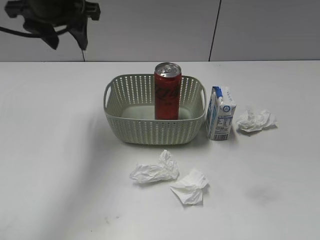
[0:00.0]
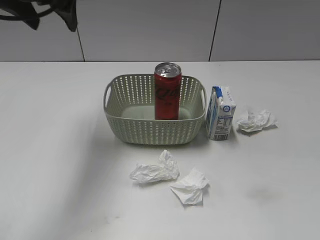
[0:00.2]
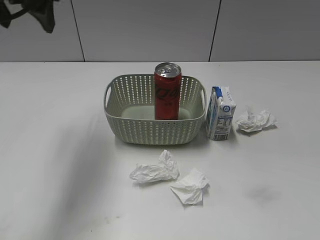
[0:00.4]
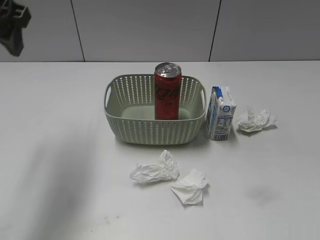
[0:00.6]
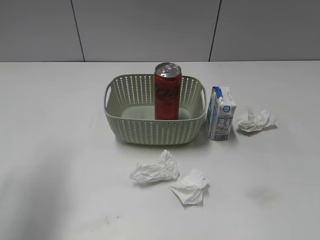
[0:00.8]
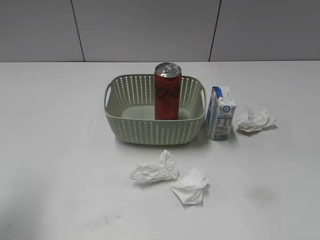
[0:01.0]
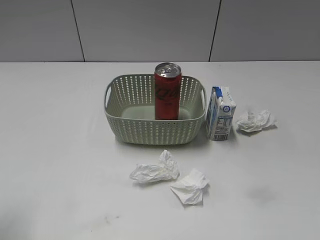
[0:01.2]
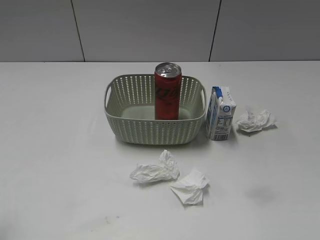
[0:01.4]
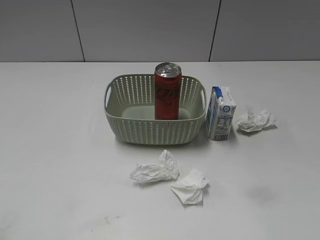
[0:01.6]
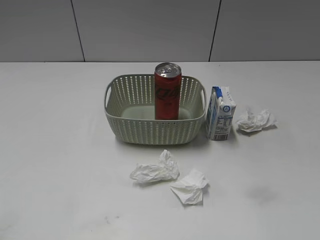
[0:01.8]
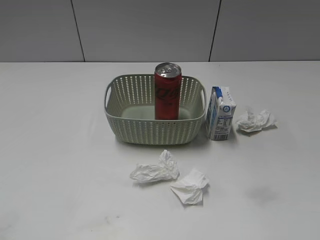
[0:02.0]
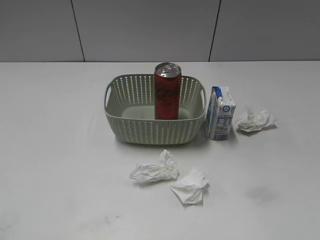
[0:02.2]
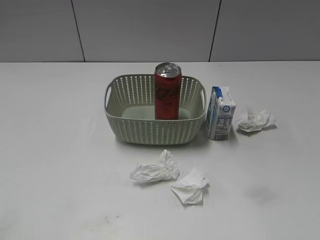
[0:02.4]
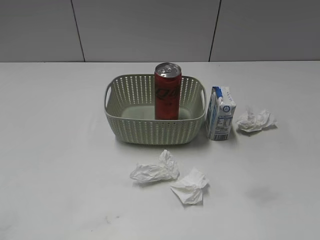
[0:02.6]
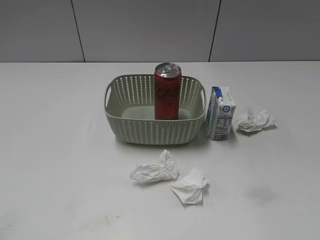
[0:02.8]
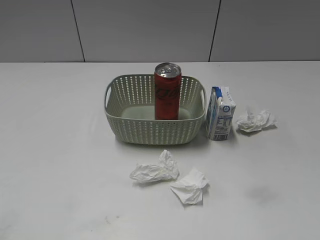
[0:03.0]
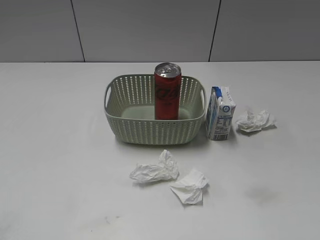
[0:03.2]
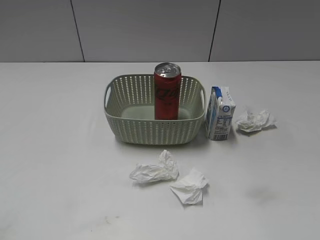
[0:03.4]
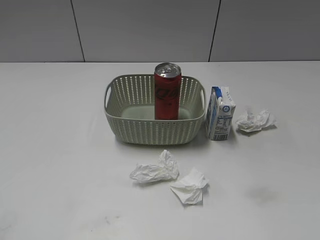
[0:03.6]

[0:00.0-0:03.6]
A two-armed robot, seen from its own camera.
0:00.0 to 0:01.8: The left gripper travels backward and to the left by about 40 cm.

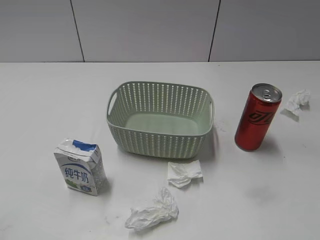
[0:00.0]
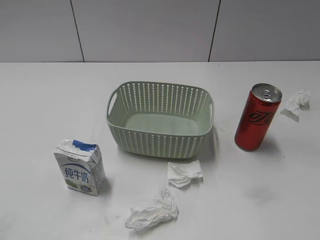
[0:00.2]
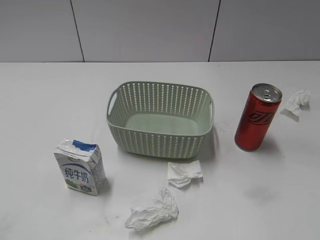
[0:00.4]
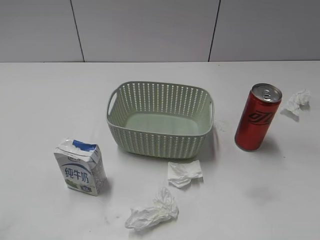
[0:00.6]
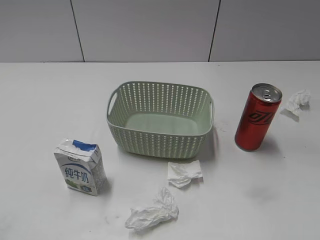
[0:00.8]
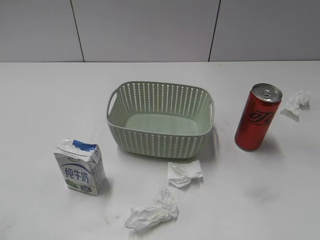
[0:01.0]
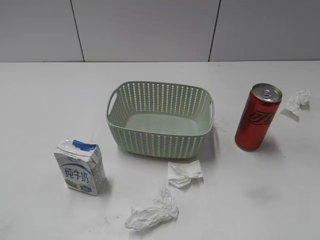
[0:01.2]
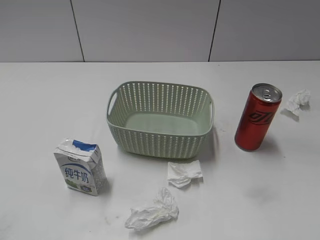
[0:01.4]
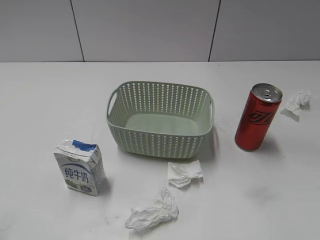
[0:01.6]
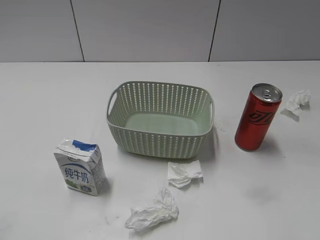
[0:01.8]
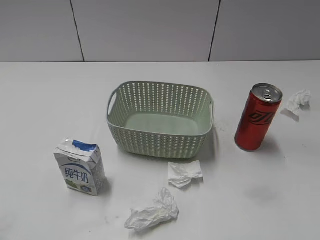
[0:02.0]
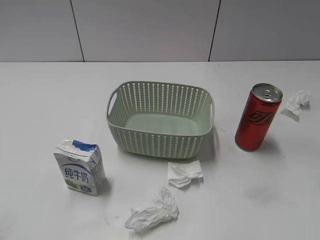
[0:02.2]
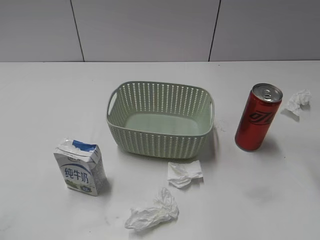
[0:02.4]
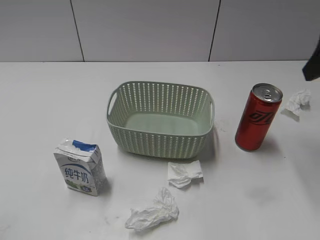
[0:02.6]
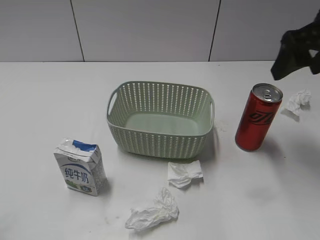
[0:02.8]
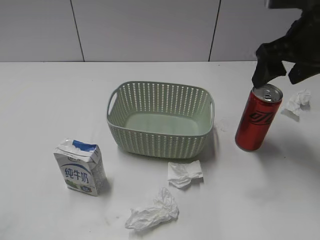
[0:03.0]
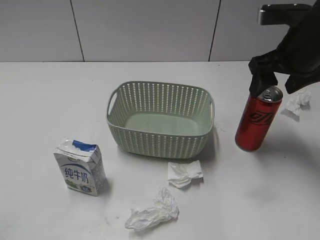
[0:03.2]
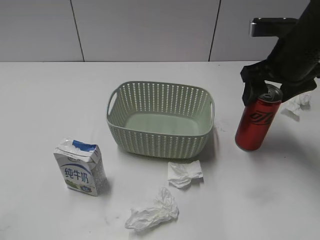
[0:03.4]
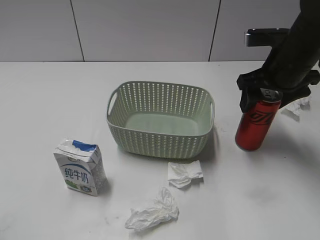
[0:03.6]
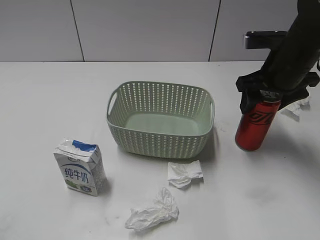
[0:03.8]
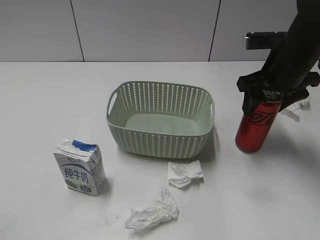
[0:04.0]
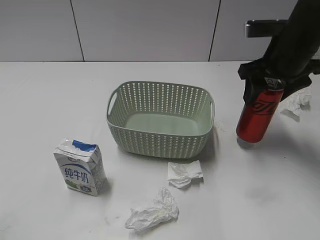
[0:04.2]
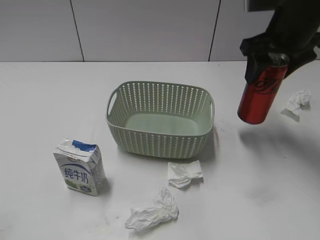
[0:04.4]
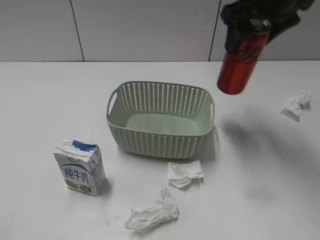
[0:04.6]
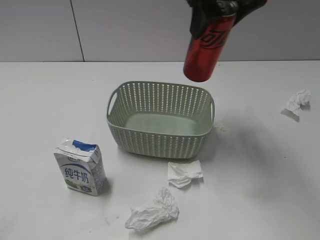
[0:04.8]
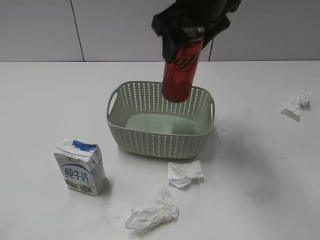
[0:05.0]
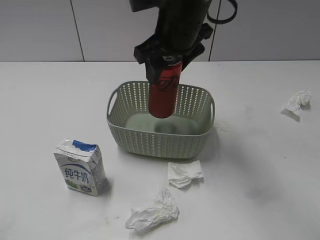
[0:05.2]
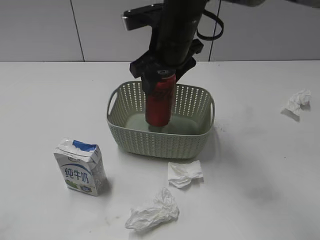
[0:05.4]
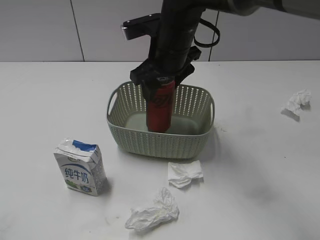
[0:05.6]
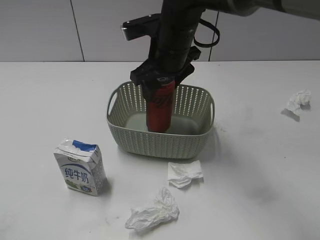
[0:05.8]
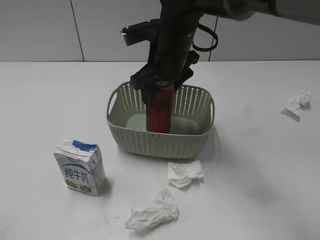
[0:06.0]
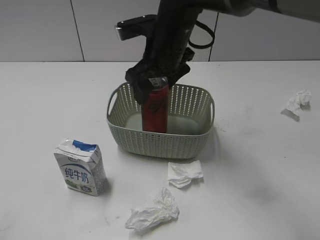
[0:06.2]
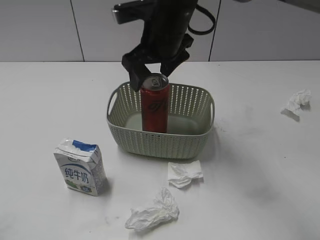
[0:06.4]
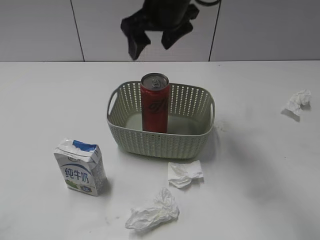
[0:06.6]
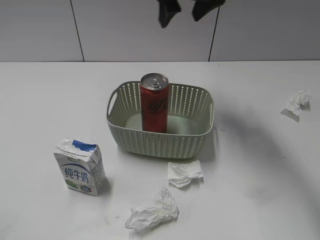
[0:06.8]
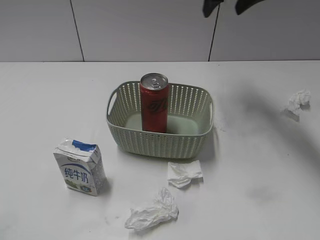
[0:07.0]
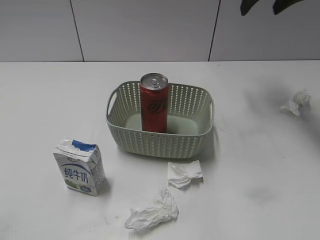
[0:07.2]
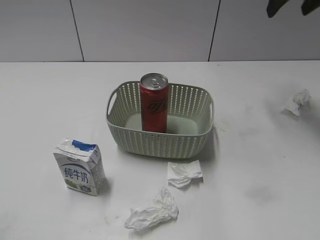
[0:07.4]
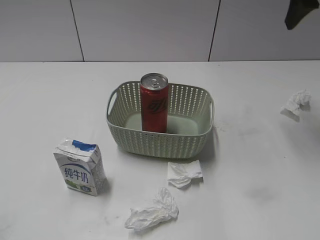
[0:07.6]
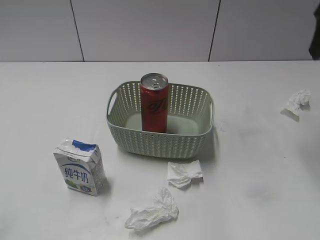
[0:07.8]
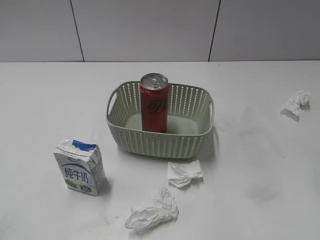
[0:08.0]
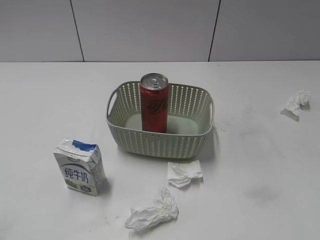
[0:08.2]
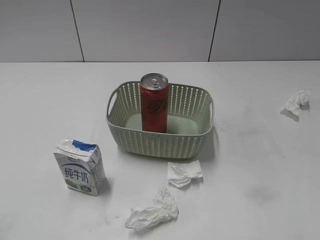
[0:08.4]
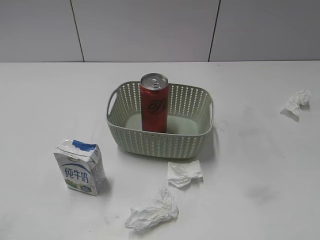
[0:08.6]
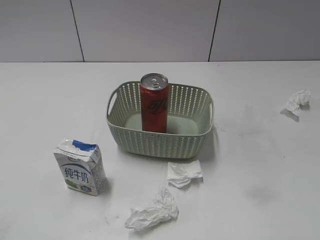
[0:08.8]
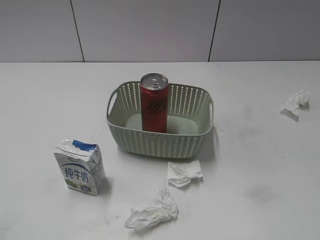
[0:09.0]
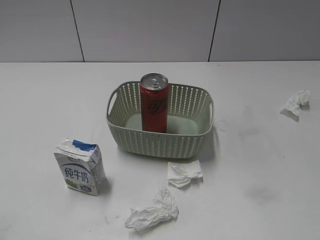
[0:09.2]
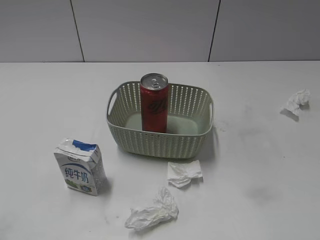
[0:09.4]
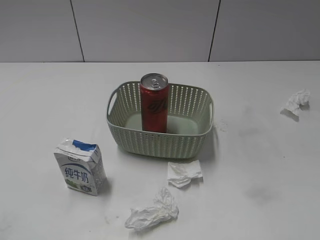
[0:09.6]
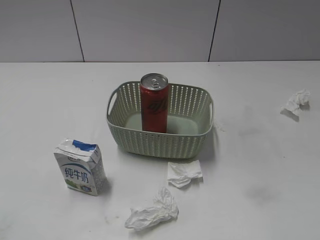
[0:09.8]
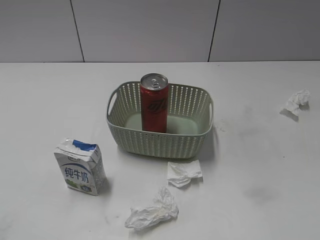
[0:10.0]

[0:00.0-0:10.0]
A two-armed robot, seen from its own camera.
Step, 0:02.6 to 0:04.0: Grasp the cola can with right gripper.
Step, 0:04.2 to 0:06.4: Place the cola can in the basket with right gripper.
0:01.4 to 0:02.8: The right gripper moves forward, approximately 25 cm.
0:02.8 to 0:04.2: The right gripper shifts approximately 10 cm downward and forward, and closes up.
0:04.2 to 0:05.8: The right gripper shifts roughly 20 cm to the left.
0:05.8 to 0:07.2: The right gripper heads to the right, upward and forward, covering approximately 25 cm, and opens its fingers.
0:07.2 to 0:08.6: The right gripper heads backward, covering some 35 cm.

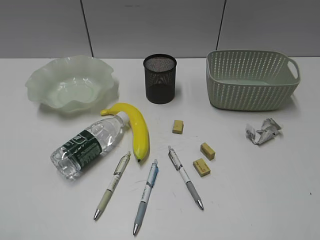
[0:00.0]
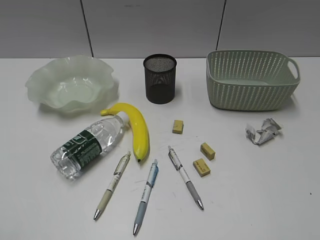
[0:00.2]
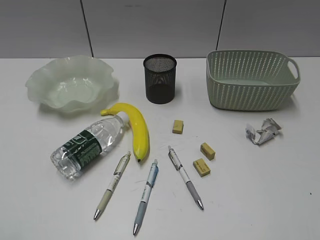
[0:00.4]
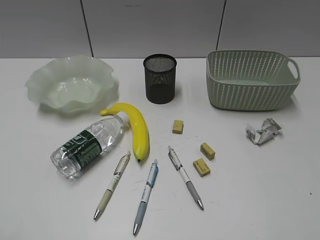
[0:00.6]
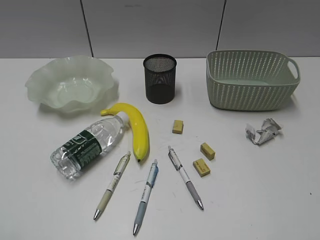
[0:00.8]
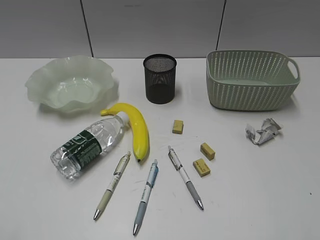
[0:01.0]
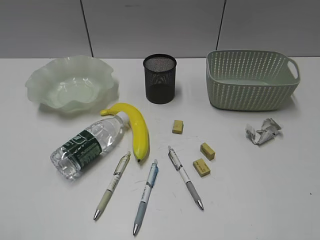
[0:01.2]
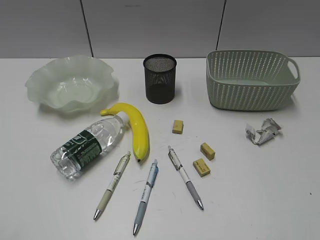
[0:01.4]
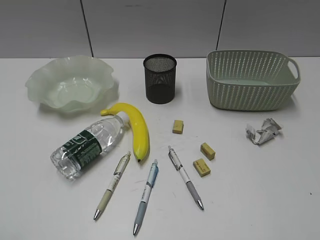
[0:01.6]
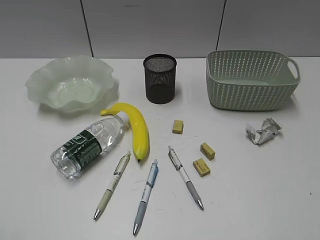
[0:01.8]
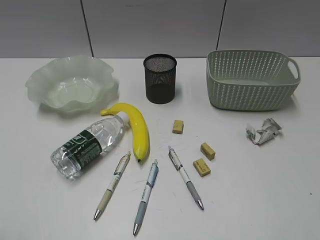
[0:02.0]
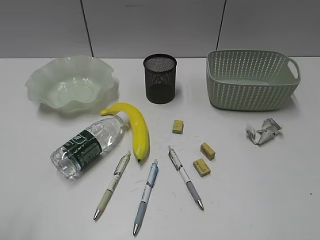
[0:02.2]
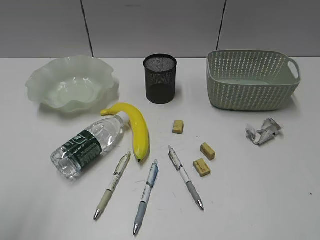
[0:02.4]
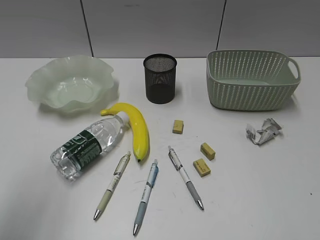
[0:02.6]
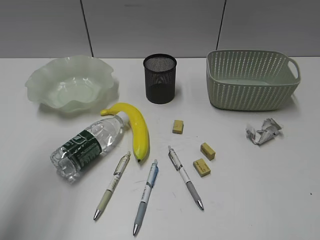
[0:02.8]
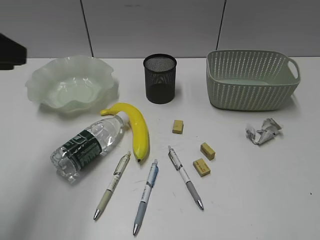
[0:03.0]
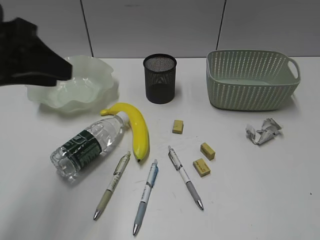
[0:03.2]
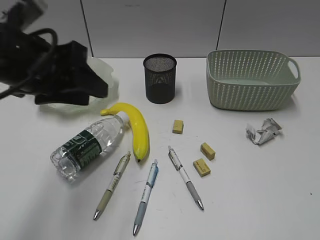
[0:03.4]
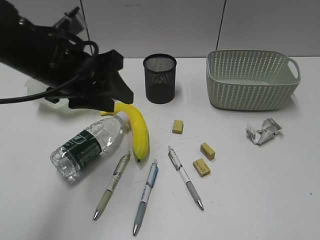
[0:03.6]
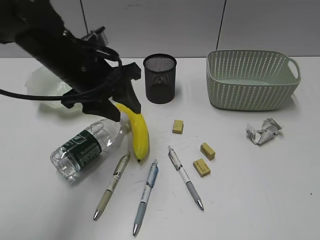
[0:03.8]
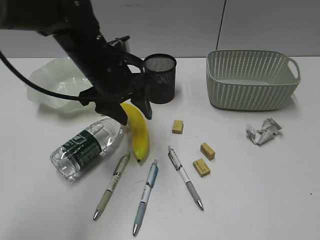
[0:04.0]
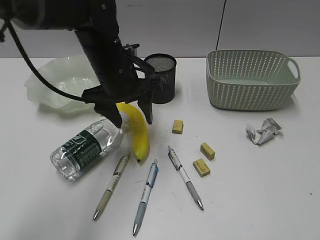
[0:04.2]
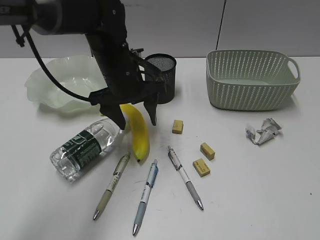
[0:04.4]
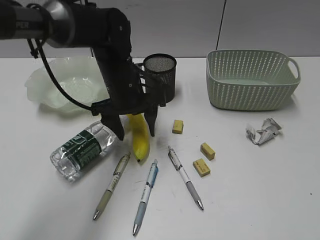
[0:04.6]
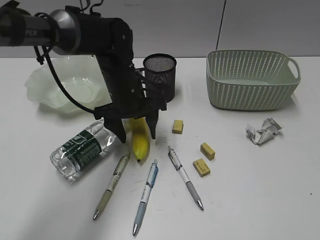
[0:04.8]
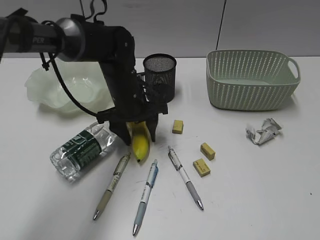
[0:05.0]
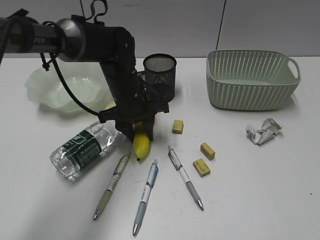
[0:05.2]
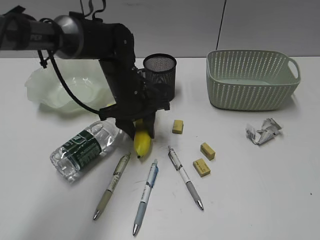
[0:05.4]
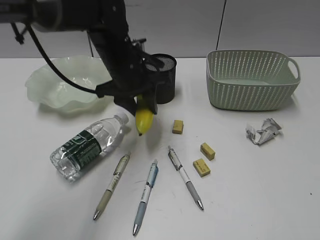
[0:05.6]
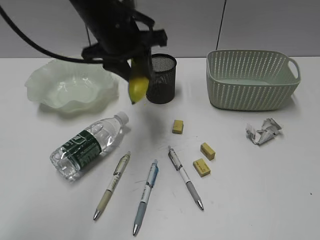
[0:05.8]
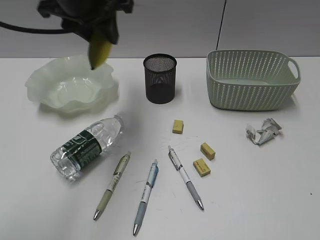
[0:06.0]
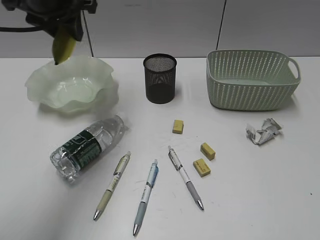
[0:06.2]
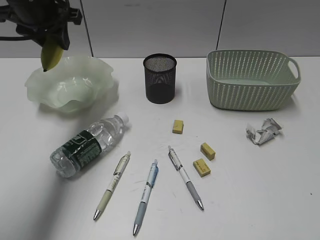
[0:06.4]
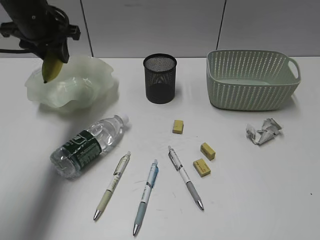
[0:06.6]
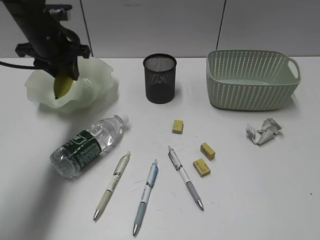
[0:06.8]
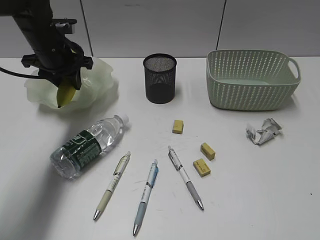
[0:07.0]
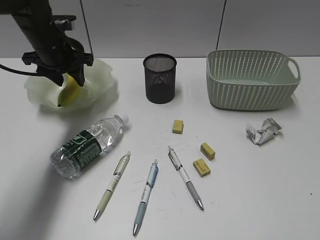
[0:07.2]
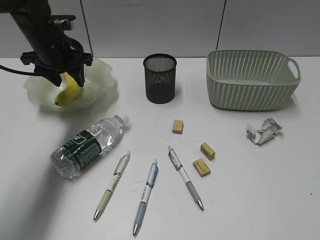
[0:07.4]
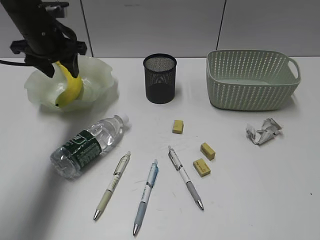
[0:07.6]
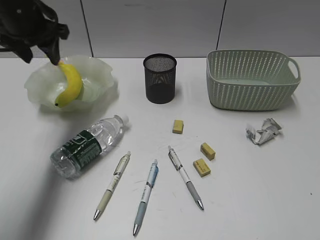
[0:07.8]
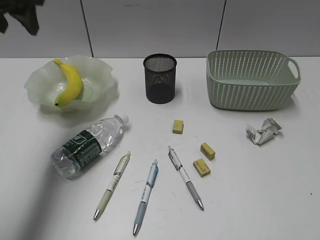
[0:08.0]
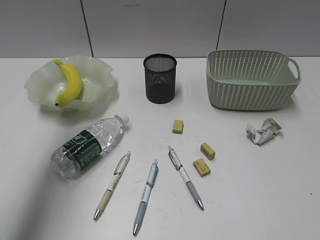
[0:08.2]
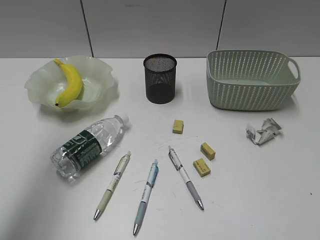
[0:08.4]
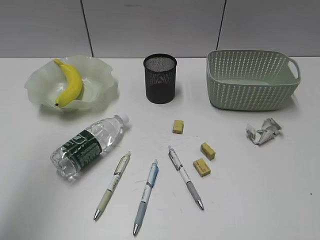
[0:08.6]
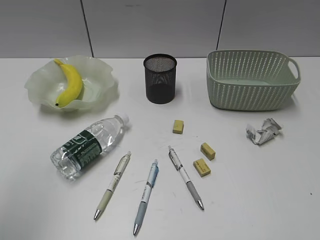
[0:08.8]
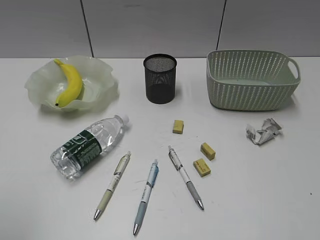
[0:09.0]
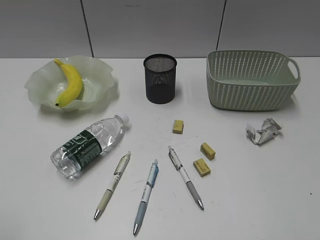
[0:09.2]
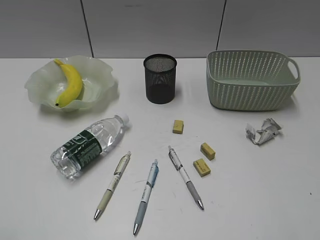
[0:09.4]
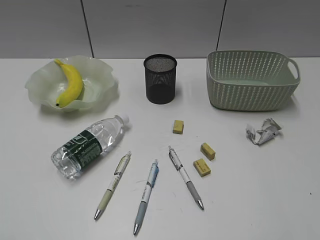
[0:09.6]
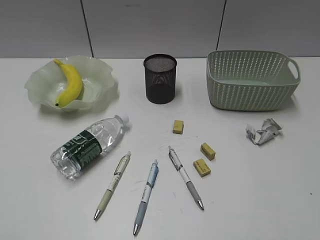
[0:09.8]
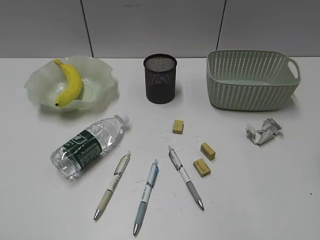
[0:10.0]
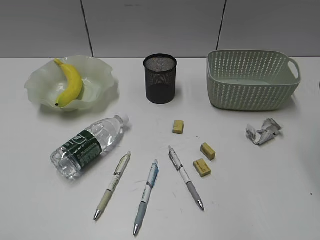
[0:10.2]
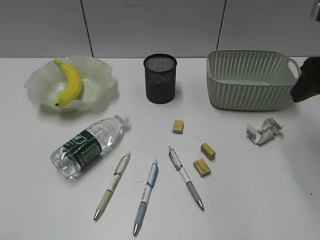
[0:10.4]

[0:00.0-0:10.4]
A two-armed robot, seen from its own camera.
Step, 0:01.4 to 0:05.2: Grasp the banana with left gripper.
Step, 0:05.4 to 0:07.6: Place the banana in the plate with left gripper.
0:01.4 to 0:03.0: The left gripper is displaced forward by about 20 cm.
0:03.0 to 0:04.4: The left gripper moves to the right, forward and downward, approximately 30 cm, and opens its fingers.
0:04.4 to 0:06.0: The left gripper shifts roughly 15 cm upward, and closes.
0:06.0 to 0:07.4: The left gripper travels downward, to the left and forward by about 20 cm.
0:07.4 to 0:09.0: The left gripper goes about 40 cm backward and upward.
0:09.0 to 0:10.4: The right gripper heads forward, covering some 30 cm, and opens.
